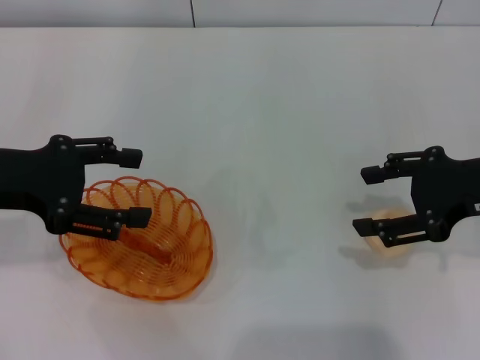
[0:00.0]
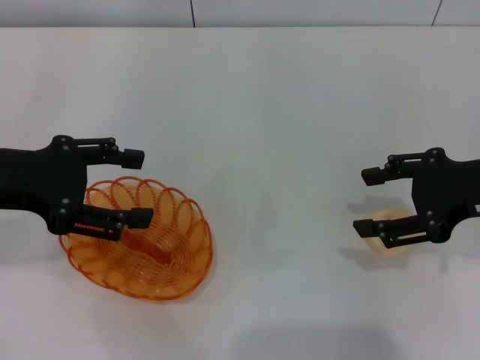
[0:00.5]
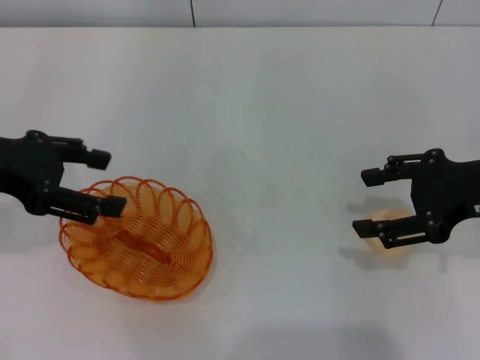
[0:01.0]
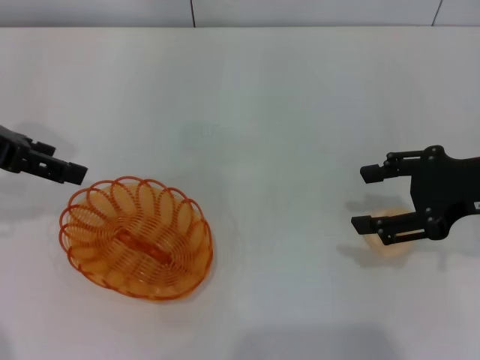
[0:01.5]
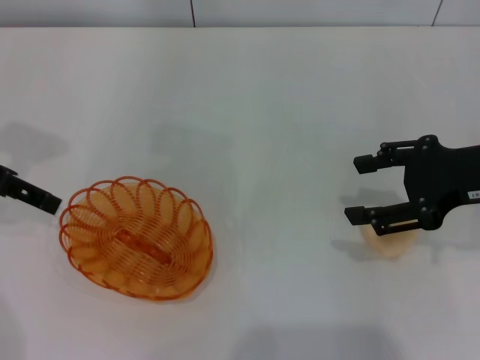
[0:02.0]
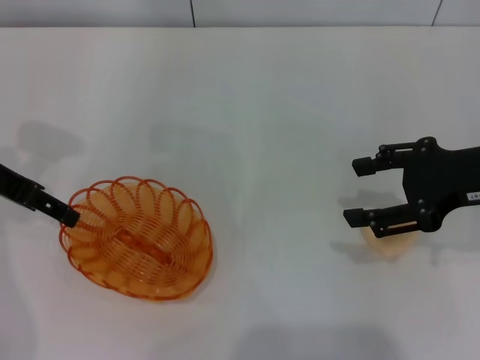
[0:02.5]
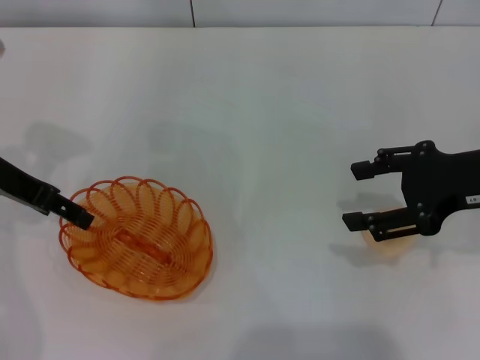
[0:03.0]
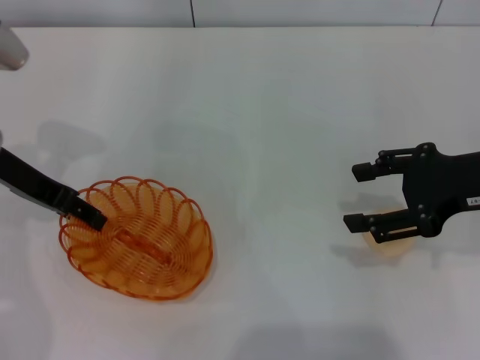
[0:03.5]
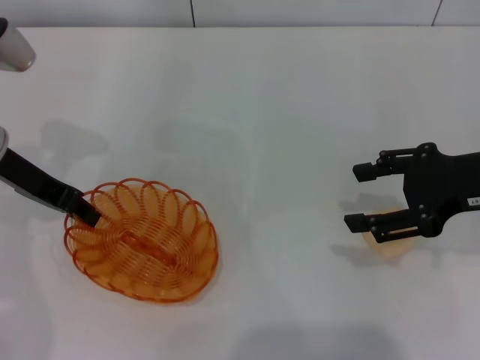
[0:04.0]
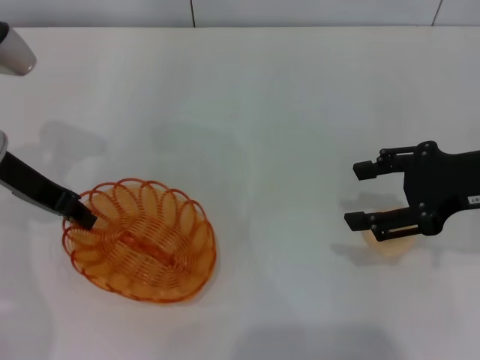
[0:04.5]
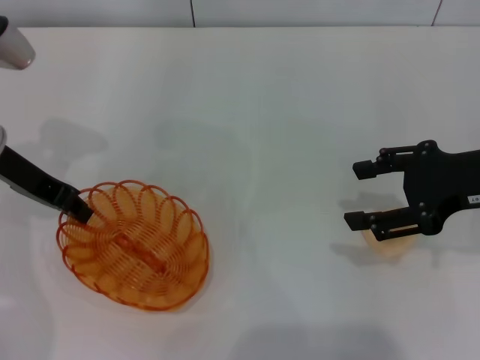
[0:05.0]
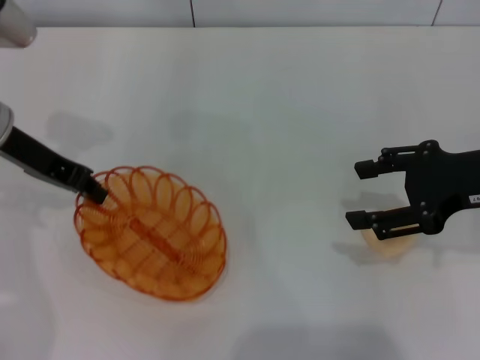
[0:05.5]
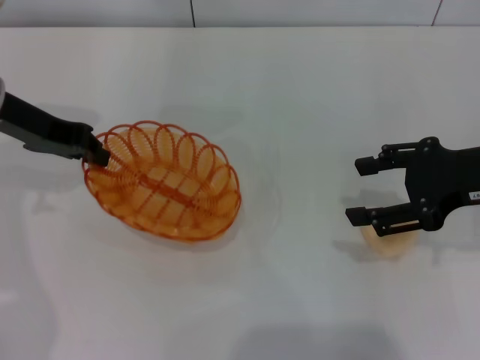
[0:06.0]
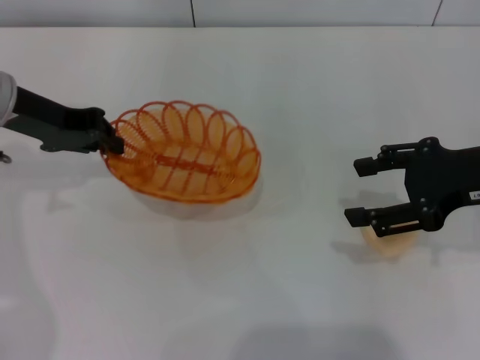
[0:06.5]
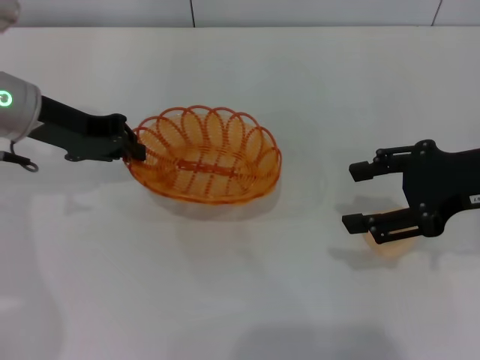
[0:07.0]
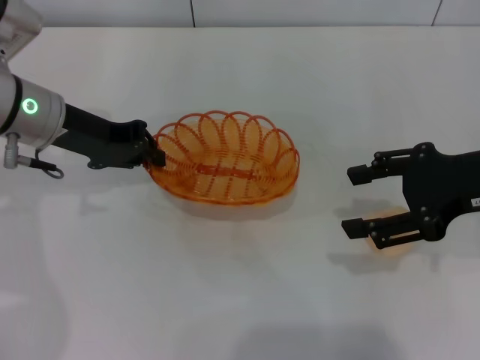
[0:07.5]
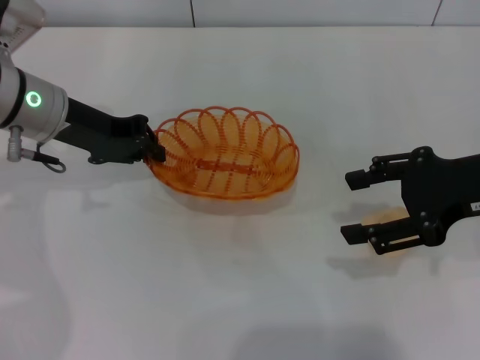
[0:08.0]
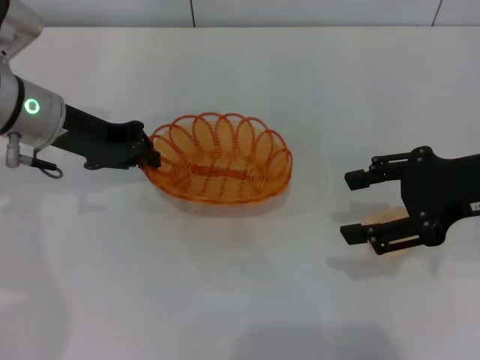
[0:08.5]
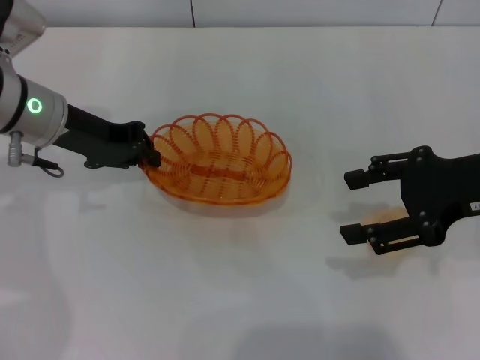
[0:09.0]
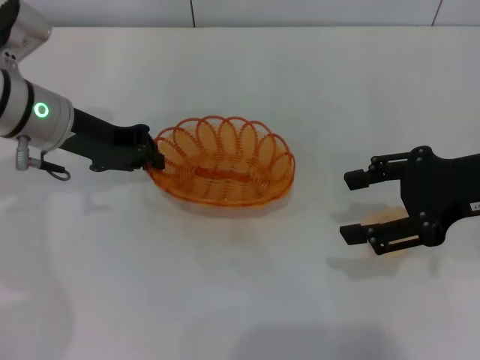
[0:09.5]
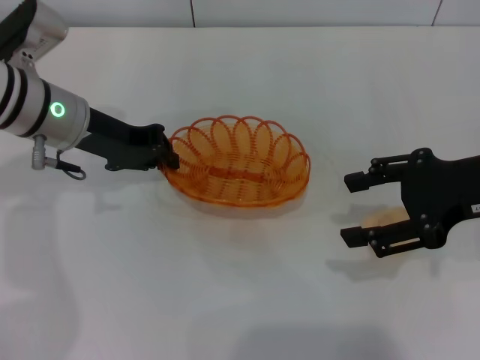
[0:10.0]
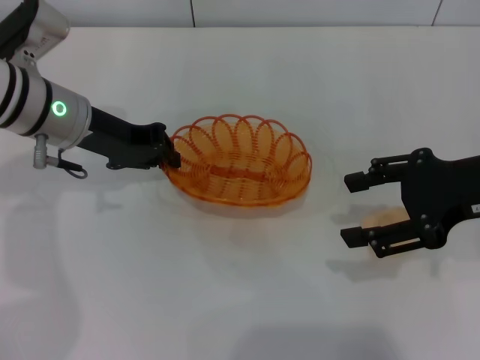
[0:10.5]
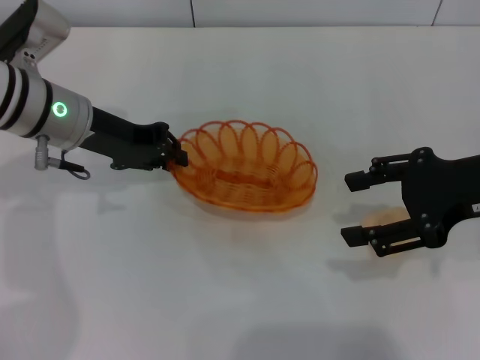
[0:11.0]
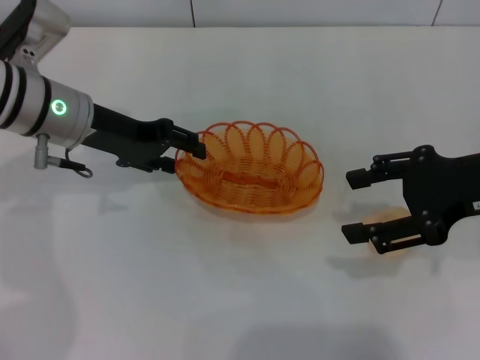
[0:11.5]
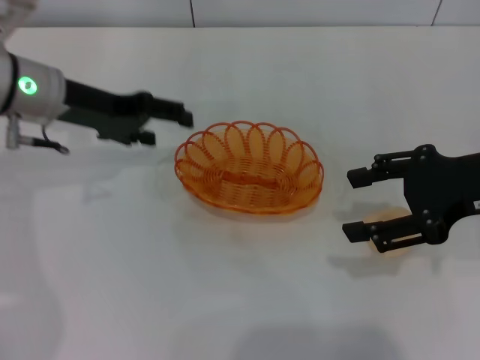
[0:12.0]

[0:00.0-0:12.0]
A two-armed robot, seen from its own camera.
Step, 0.0 to 7.0 s: Pick up the basket with the left gripper.
0.0 to 2.0 s: The left gripper travels forward by some 5 cm.
2.0 to 4.0 s: The left gripper goes approximately 5 cm downward, and closes up.
4.0 to 6.0 s: The left gripper closes up.
6.0 to 8.0 s: The left gripper changes place by about 5 cm.
8.0 to 10.0 s: The grippers move only a little.
10.0 to 12.0 s: The left gripper opens.

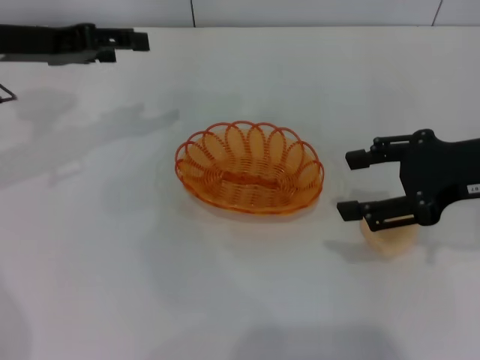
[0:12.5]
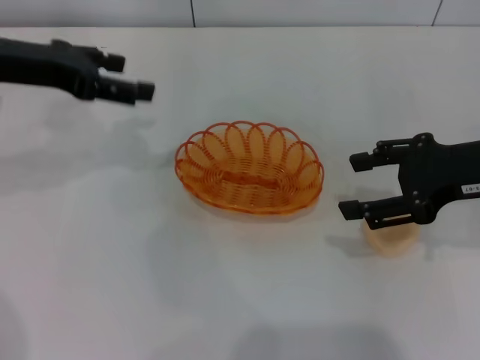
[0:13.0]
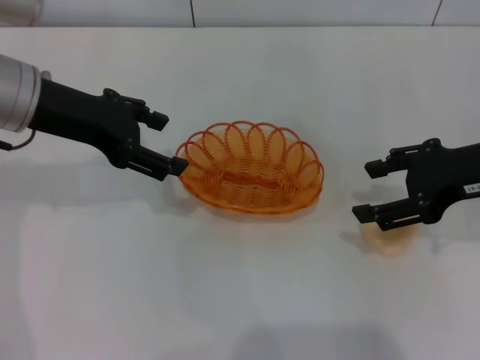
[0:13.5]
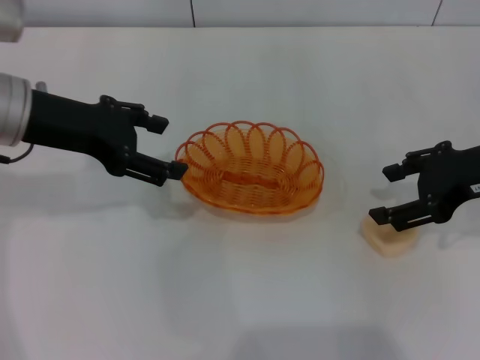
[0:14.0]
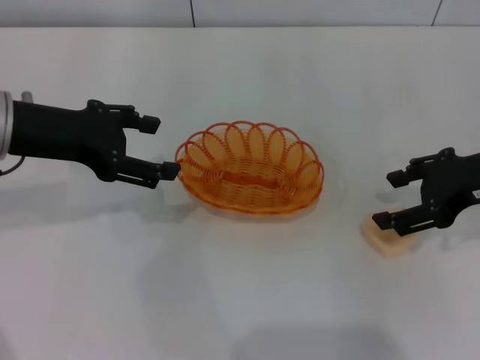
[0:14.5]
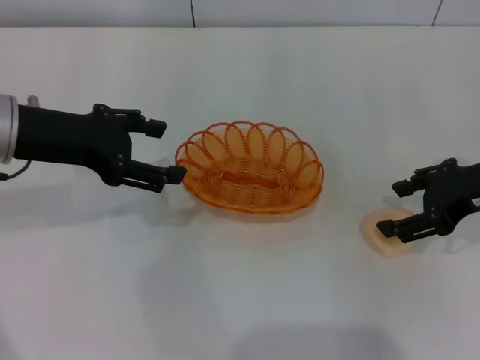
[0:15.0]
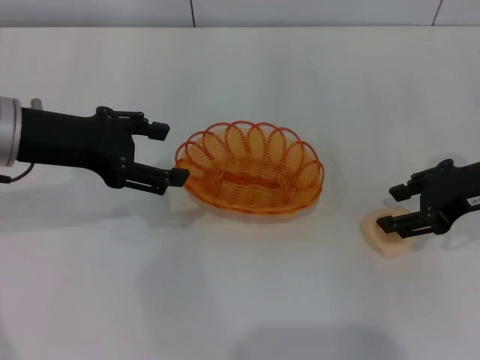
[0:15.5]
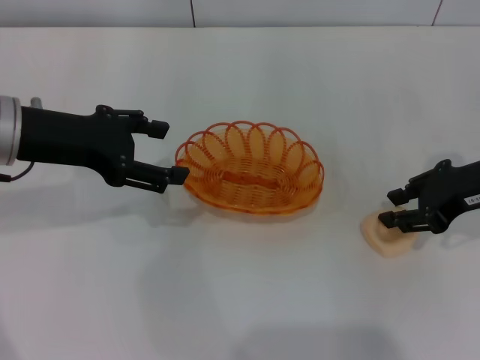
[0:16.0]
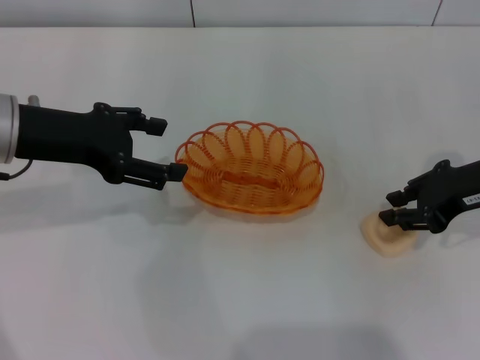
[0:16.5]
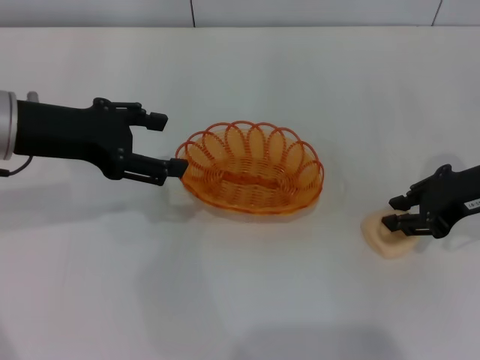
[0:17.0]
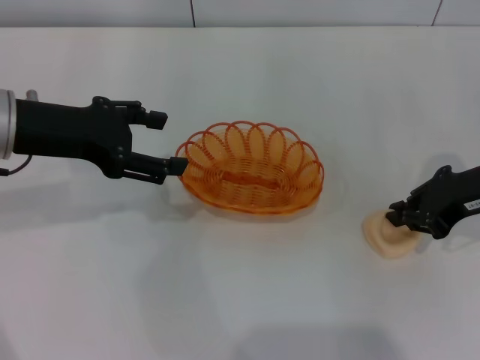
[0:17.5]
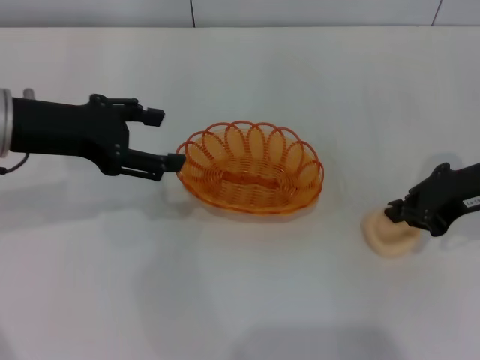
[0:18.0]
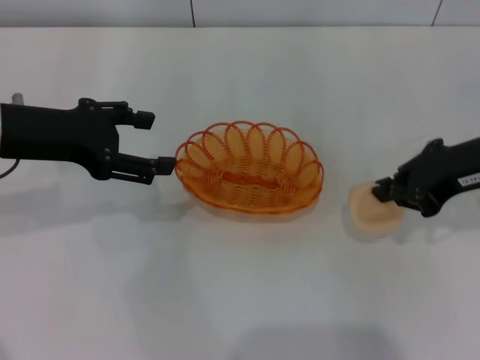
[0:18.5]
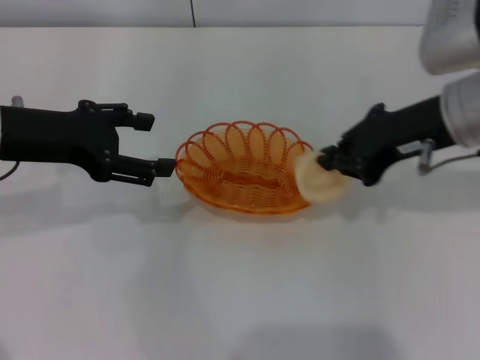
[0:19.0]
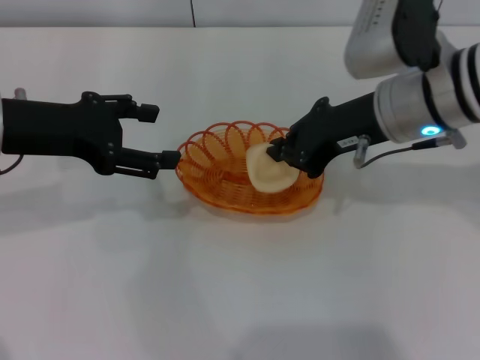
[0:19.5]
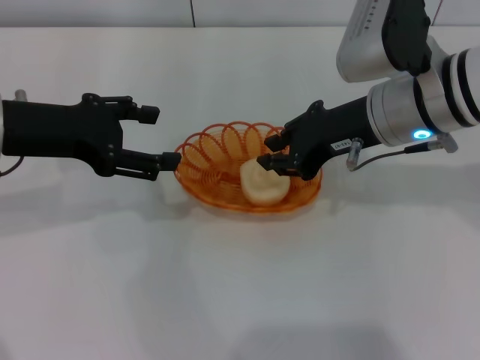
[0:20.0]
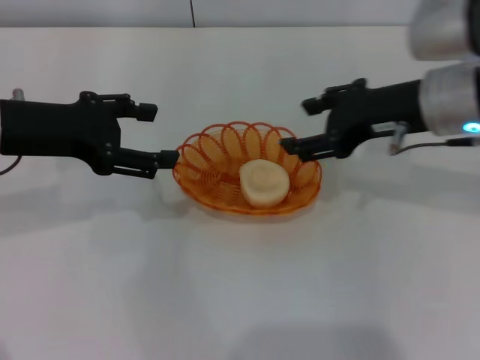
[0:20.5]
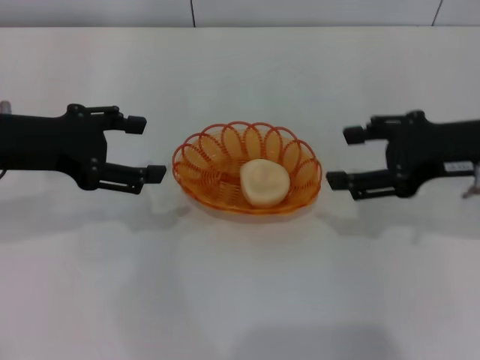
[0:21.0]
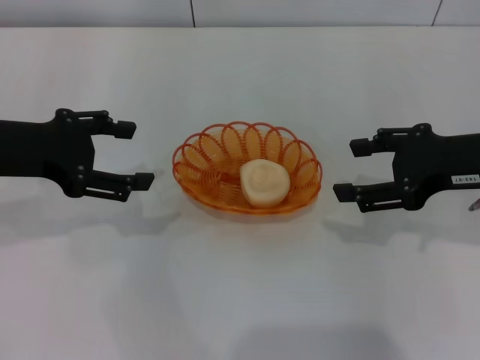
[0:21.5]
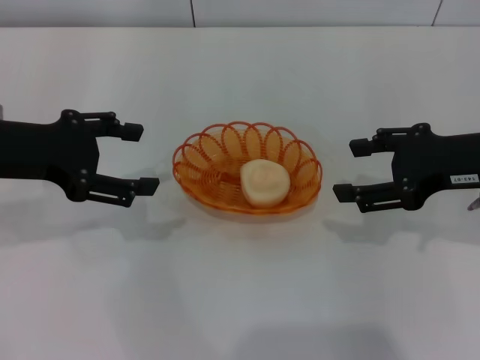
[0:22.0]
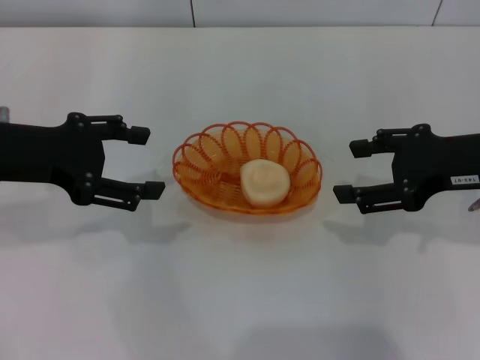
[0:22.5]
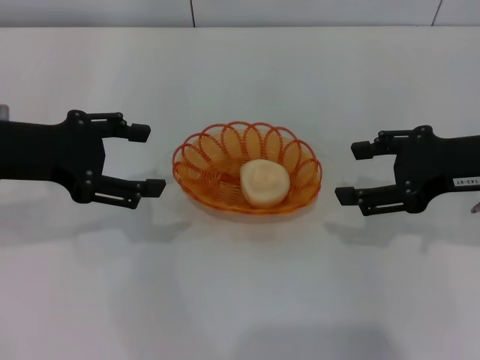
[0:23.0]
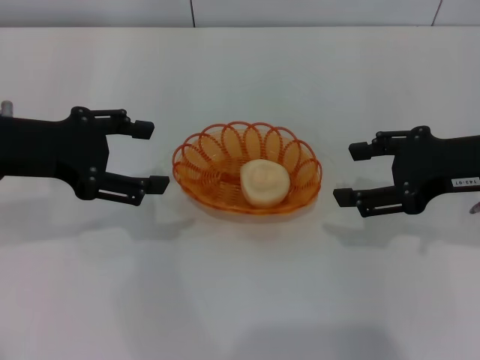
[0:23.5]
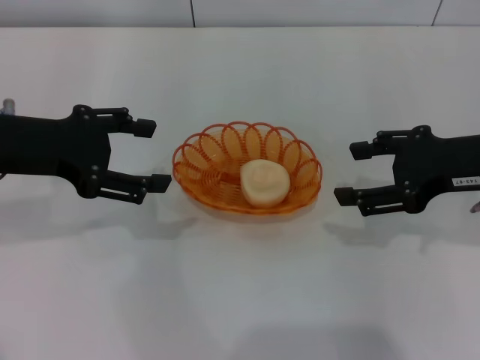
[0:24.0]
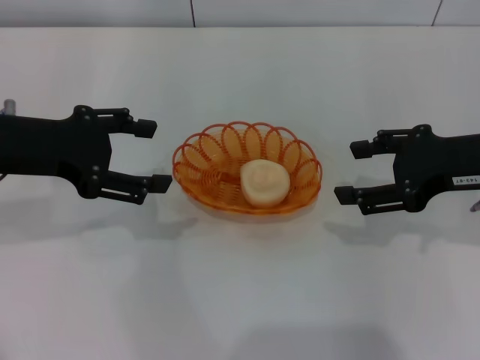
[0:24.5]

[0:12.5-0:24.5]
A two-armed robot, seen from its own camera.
Step, 12.5 to 18.5 s: Pick up the egg yolk pastry with the right gripper.
Step, 19.0 to 20.5 s: Place the egg yolk pastry into the basket with the right gripper.
12.5 to 14.5 s: The left gripper heads backward, covering roughly 5 cm.
14.5 to 16.5 s: The right gripper closes.
16.5 to 18.5 s: The right gripper closes up.
18.5 to 20.5 s: The right gripper moves to the left, approximately 5 cm, and opens.
20.5 to 22.5 s: The right gripper is displaced to the right by roughly 5 cm, and opens its fingers.
22.5 to 24.5 s: Both grippers stay about where they are.

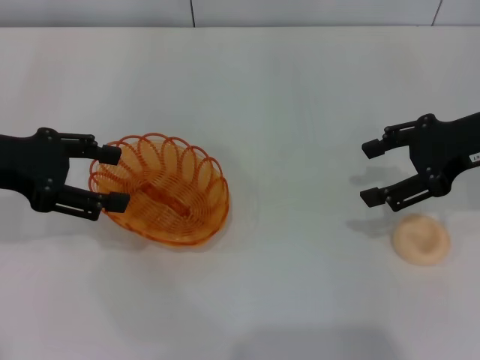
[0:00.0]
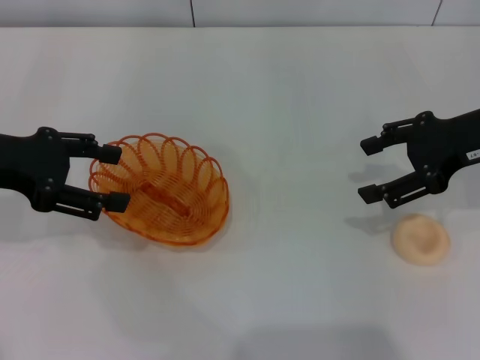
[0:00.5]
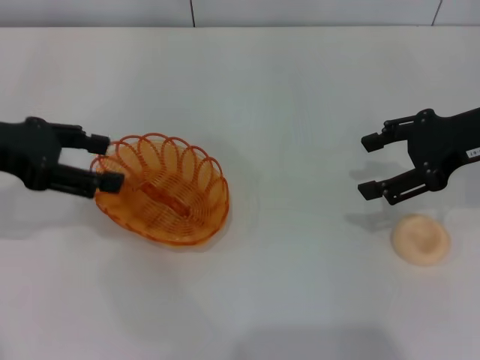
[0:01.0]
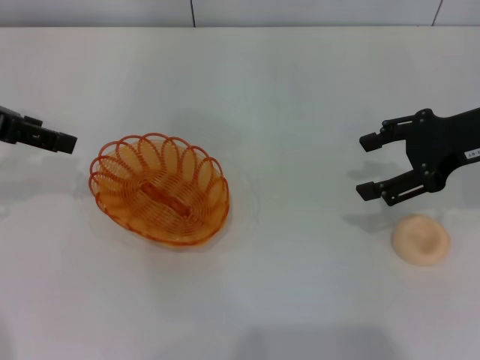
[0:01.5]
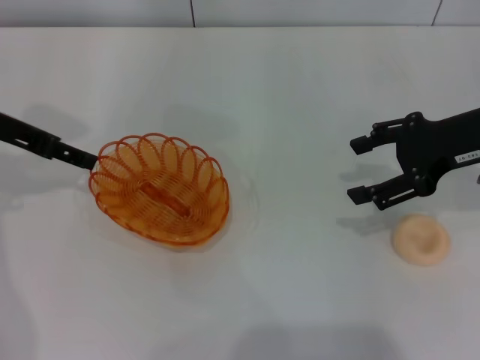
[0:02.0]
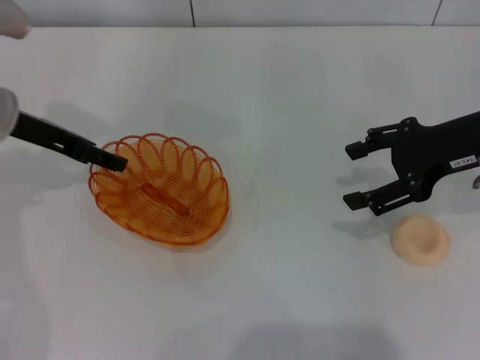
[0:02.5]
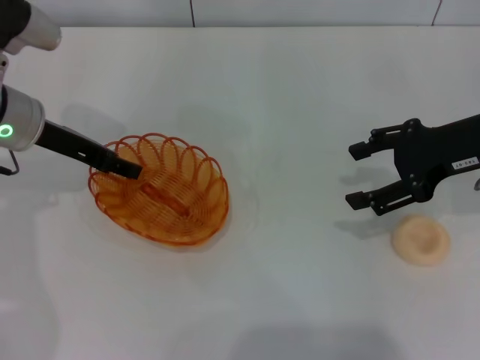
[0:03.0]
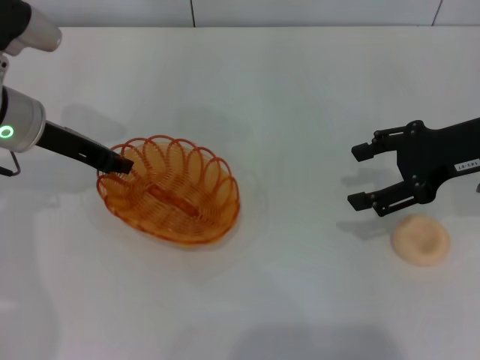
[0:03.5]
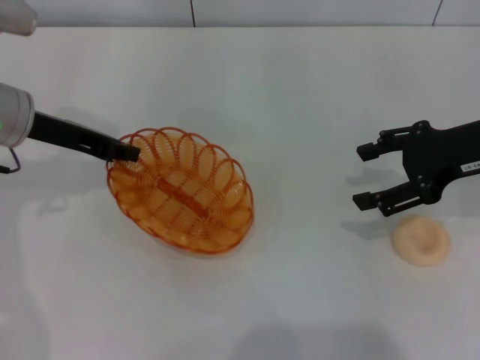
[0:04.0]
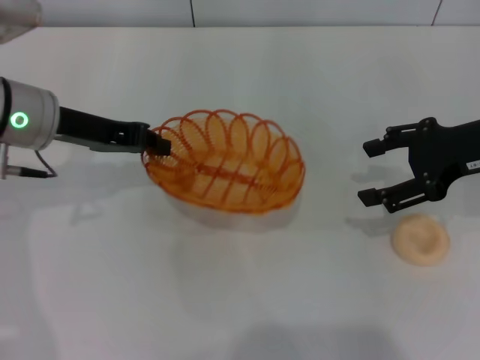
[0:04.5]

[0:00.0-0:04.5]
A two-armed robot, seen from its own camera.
Step, 0.0 to 4.0 s: Pick up the basket with the left gripper.
0.0 to 2.0 s: The left gripper is displaced forward by roughly 5 cm.
2.0 to 4.5 s: The left gripper heads to the right, covering approximately 5 cm, and closes up.
